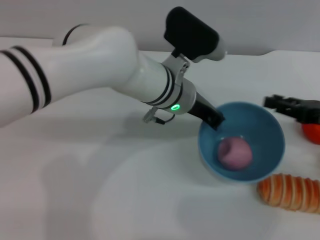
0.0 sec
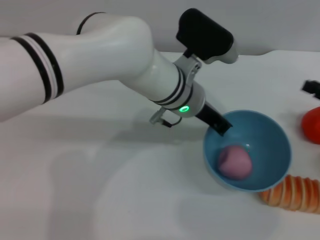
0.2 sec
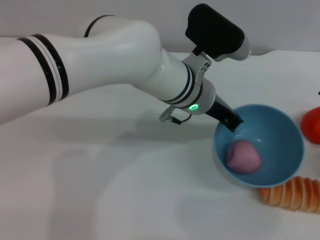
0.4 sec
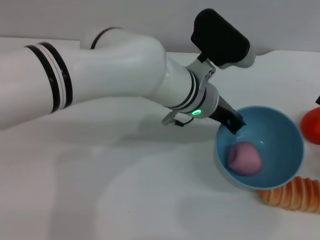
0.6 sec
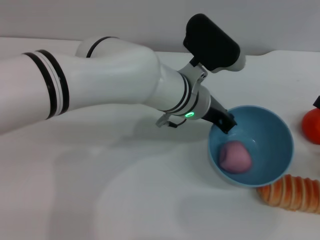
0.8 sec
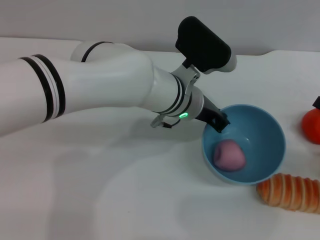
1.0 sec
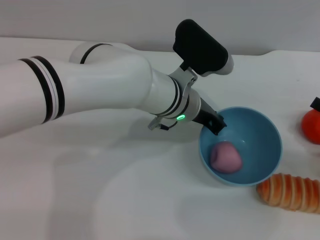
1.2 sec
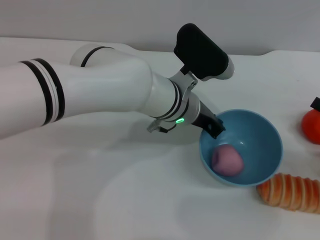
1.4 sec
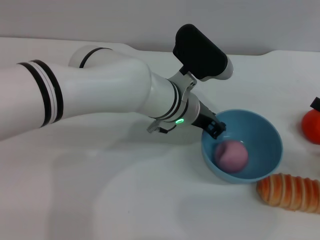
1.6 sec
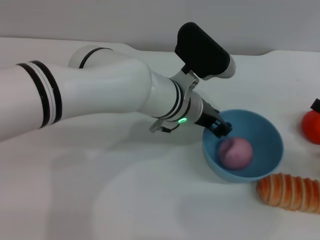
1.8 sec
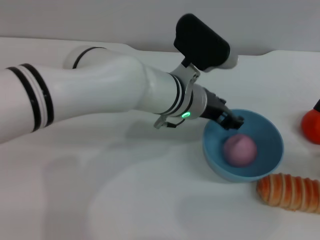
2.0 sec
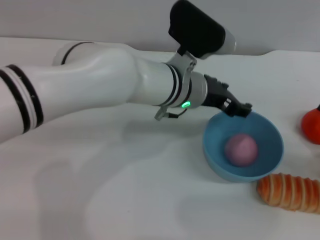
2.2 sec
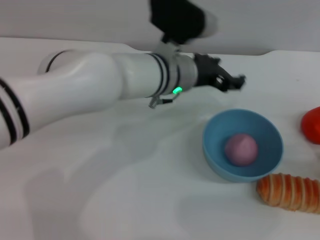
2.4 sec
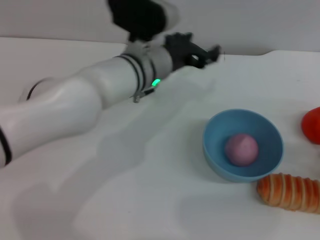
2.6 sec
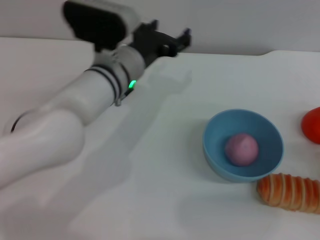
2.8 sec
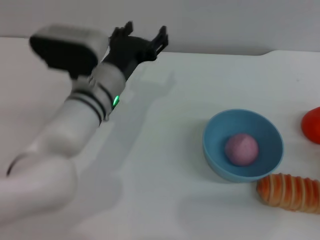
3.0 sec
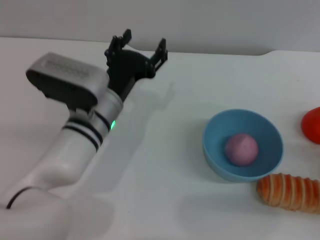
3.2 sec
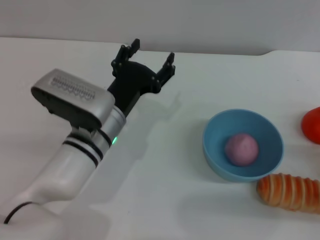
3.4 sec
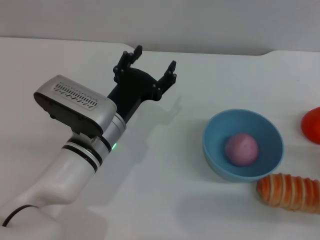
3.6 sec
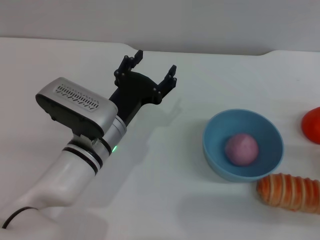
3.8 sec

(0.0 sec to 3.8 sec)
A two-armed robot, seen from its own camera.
Task of the whole recording: put the peach into the blue bowl and pour it out repeatedly.
Step, 0.2 sec - 2.4 sec: Place the bowl on the table.
0.0 sec - 1.2 sec: The right gripper travels backward by some 5 cm.
1.2 sec - 2.6 sec: The left gripper shifts by about 5 cm, and opens.
2.6 sec - 3.8 sec: The left gripper is displaced backward, downward and to the left by approximately 15 cm.

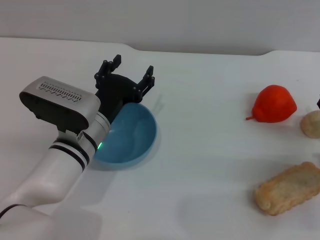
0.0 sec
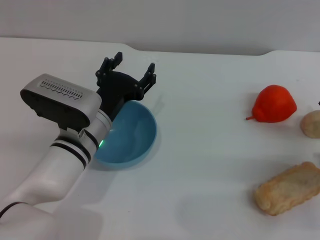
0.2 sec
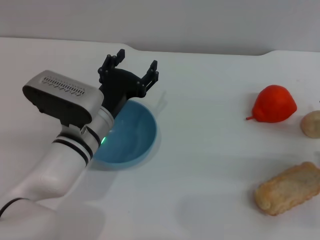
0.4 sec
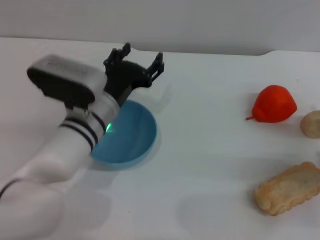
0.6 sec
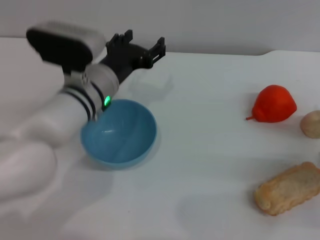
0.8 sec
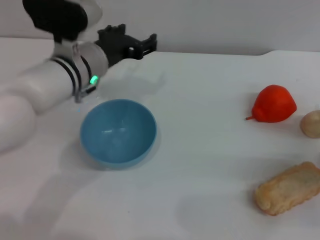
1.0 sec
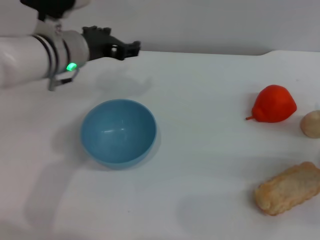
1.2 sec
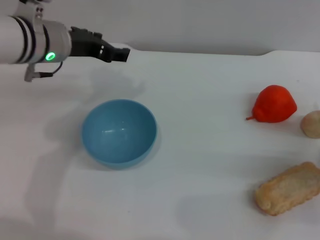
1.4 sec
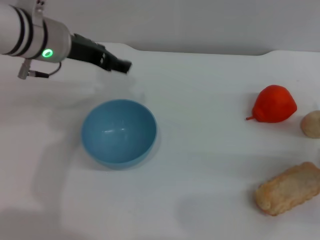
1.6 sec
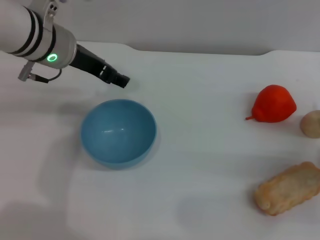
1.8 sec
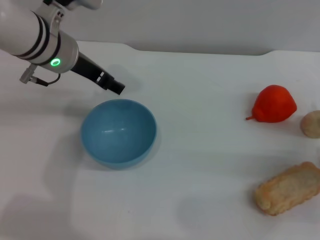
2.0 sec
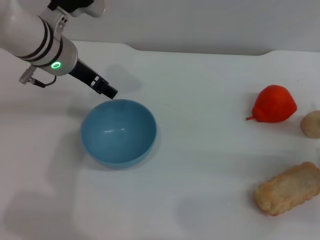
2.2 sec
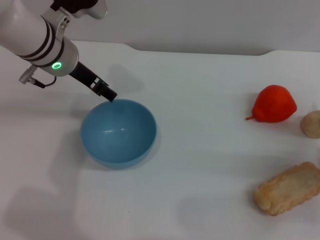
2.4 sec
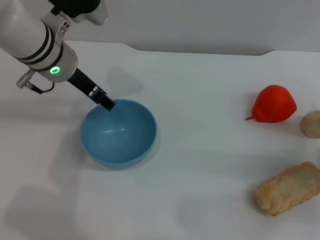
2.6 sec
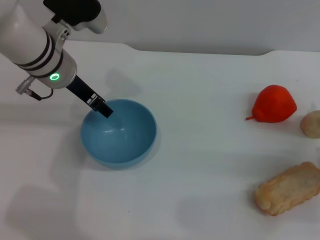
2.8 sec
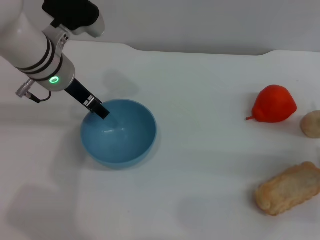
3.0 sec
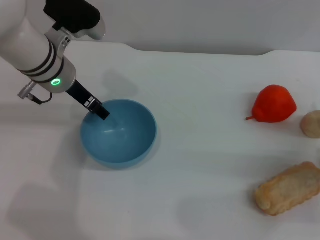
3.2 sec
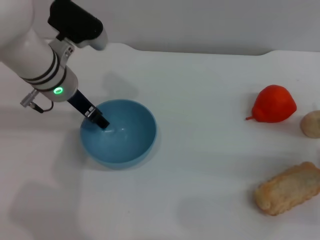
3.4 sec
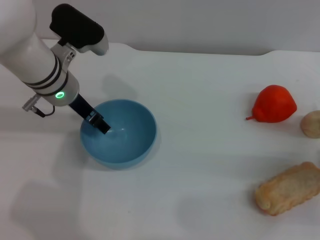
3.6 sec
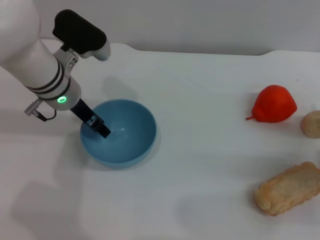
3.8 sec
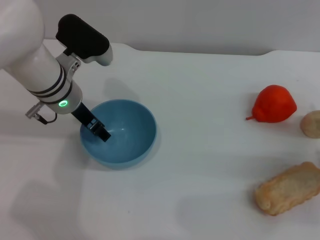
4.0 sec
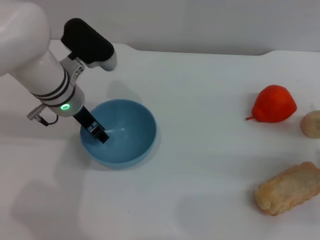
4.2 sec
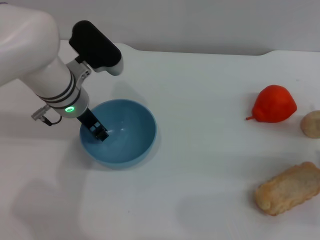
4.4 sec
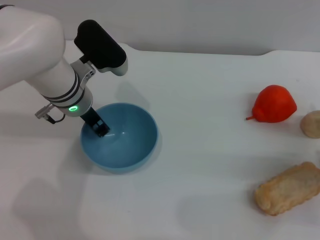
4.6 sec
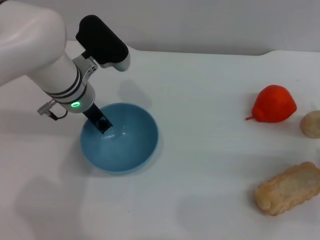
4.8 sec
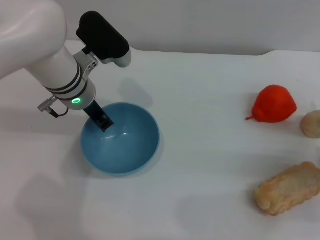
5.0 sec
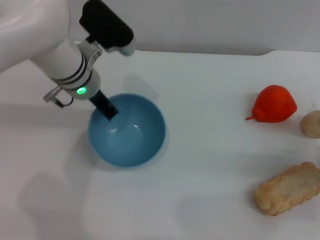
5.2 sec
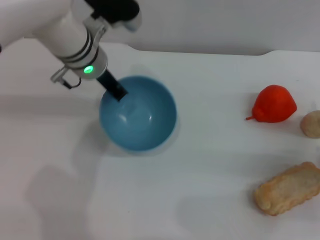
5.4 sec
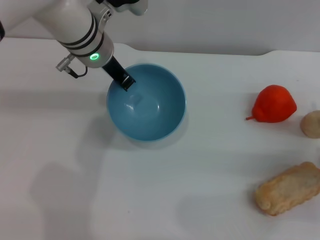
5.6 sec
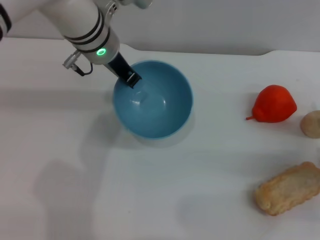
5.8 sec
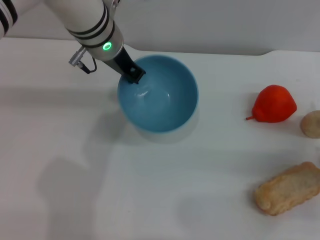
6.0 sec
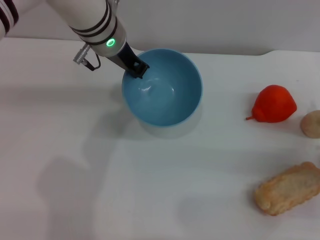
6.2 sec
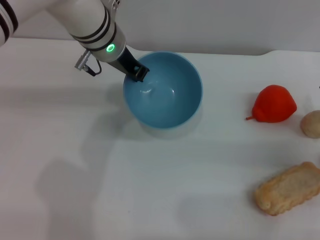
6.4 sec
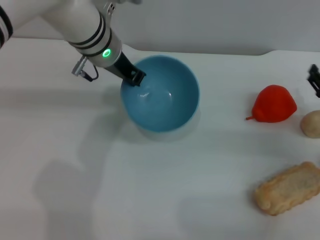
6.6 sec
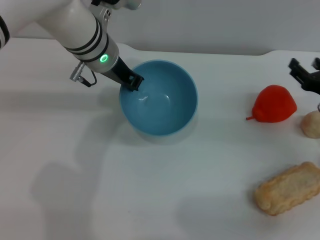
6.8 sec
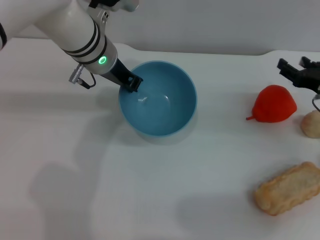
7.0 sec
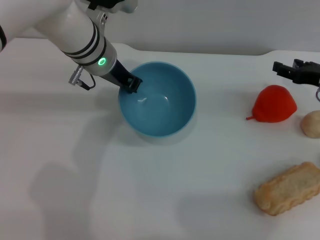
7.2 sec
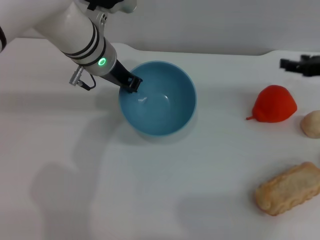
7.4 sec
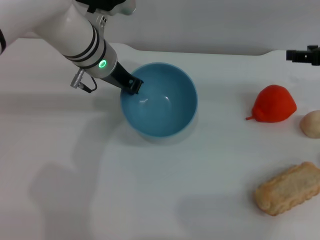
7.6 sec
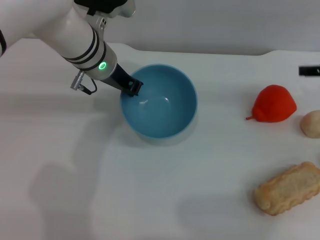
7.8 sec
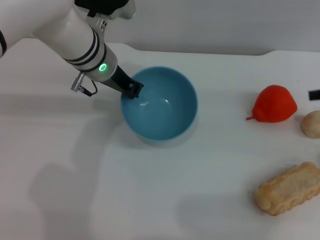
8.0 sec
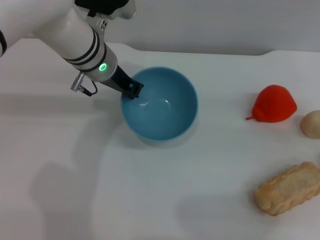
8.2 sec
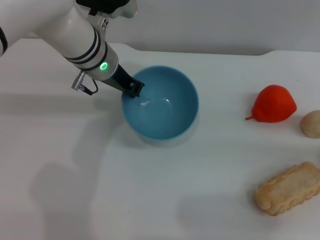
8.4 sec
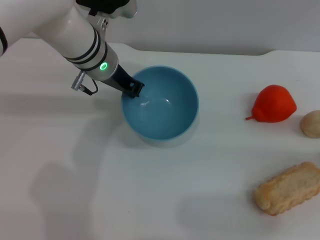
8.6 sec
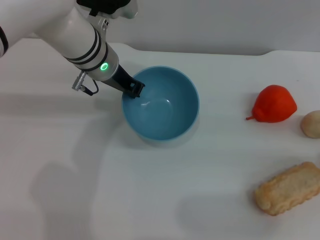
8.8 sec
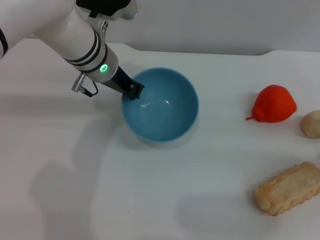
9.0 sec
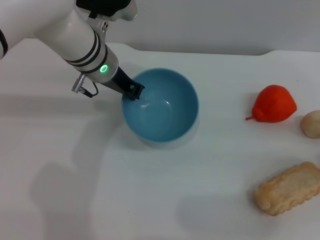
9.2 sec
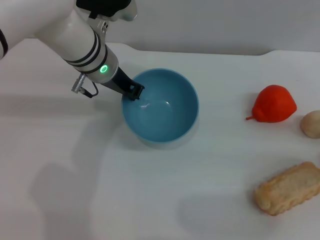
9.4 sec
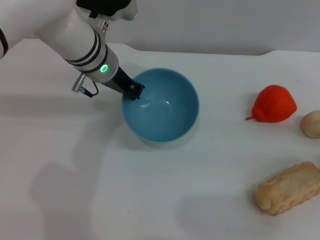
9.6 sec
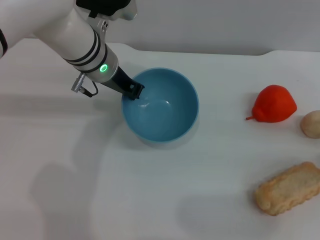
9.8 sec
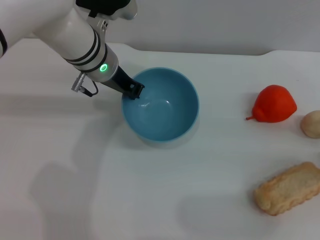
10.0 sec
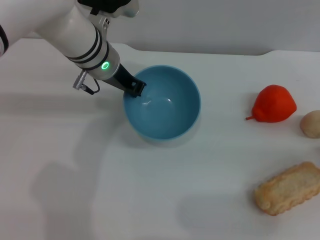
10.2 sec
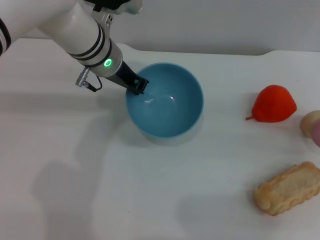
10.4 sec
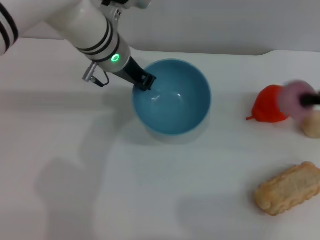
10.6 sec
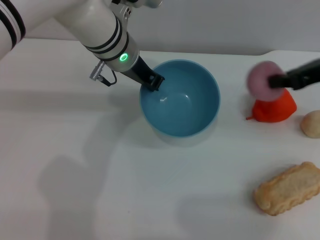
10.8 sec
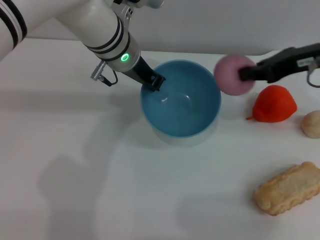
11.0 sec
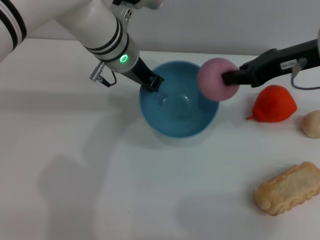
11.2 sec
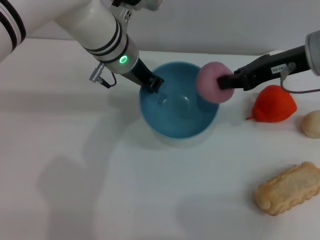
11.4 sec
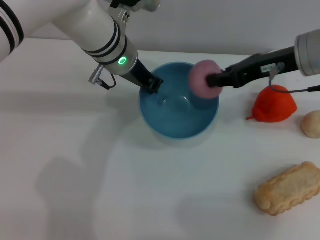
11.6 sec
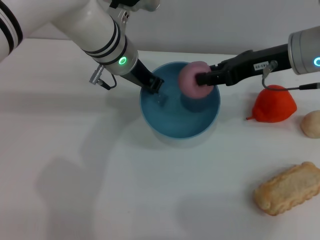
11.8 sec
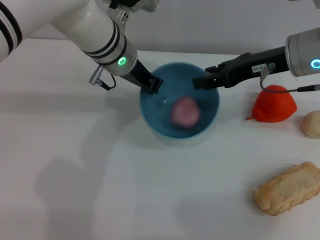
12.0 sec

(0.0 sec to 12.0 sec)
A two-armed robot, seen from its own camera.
Task of the whole recording: put the peach into the blue bowl and pour it out repeatedly.
Step, 0.0 sec - 6.4 sec: Pick up the bowl with the left gripper.
Step, 6.8 sec - 10.8 sec: Pick up the peach with the right gripper.
0.0 sec - 1.6 sec: The left gripper is displaced upward and forward by about 15 cm.
3.0 sec - 4.4 sec: The left gripper shifts by some 5 cm.
4.4 sec - 6.0 sec: The left gripper is displaced upward and to the right by approximately 10 cm, and closes.
6.0 sec - 7.6 sec: The right gripper shifts some 20 cm upward and forward.
7.6 sec - 9.0 sec: The right gripper shifts approximately 10 cm backward and to the right.
9.0 sec - 10.4 sec: The right gripper shifts by roughly 5 cm, and closes.
10.4 sec - 12.0 sec: The right gripper travels to the left by some 15 cm, and opens its fingers.

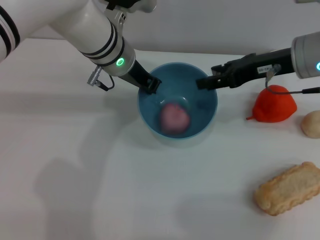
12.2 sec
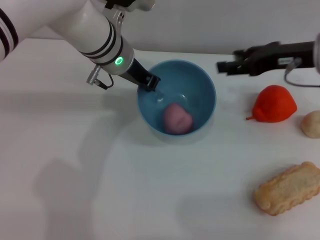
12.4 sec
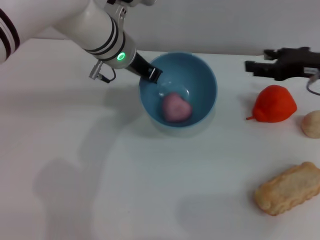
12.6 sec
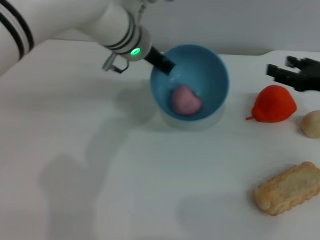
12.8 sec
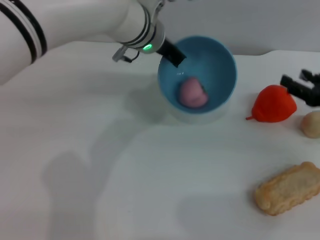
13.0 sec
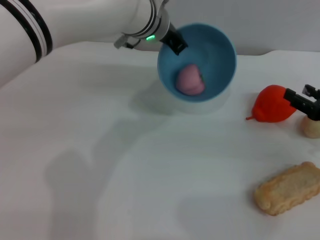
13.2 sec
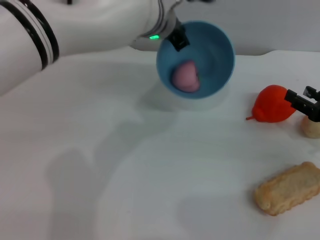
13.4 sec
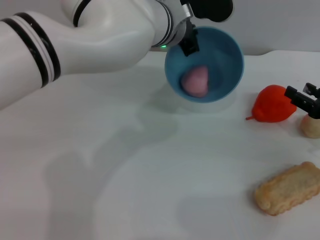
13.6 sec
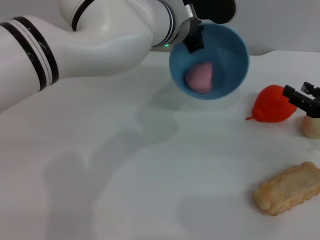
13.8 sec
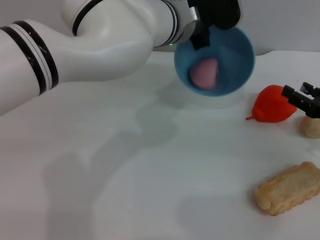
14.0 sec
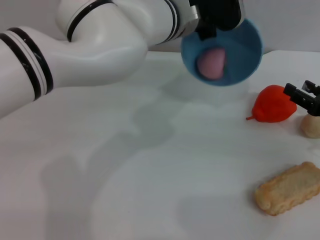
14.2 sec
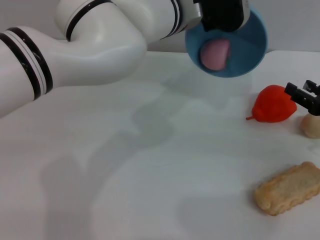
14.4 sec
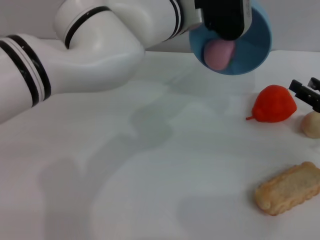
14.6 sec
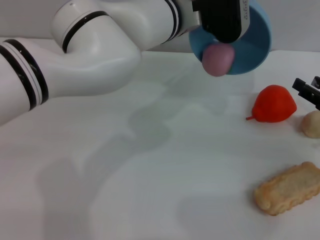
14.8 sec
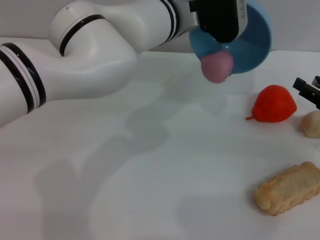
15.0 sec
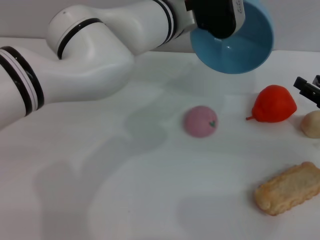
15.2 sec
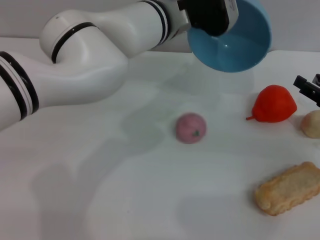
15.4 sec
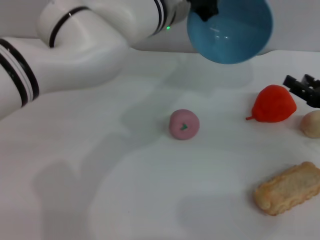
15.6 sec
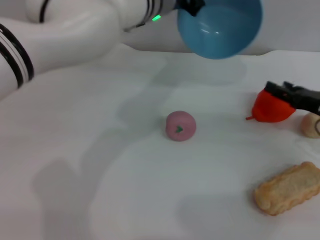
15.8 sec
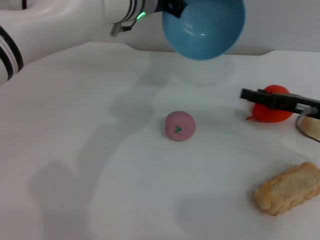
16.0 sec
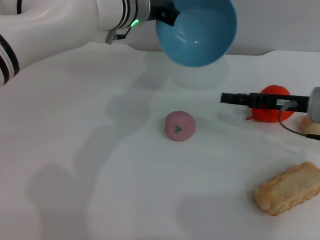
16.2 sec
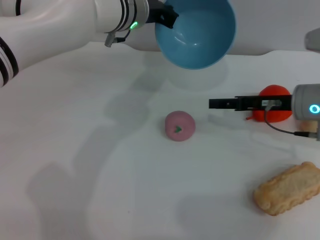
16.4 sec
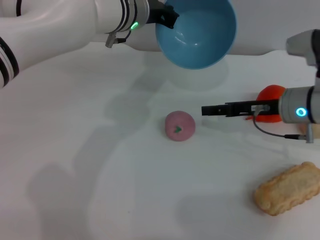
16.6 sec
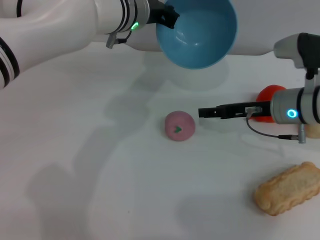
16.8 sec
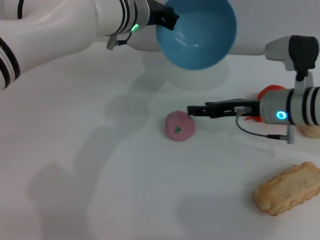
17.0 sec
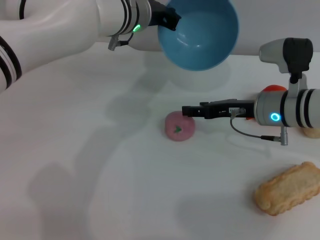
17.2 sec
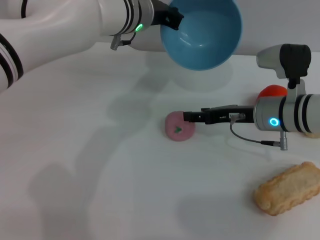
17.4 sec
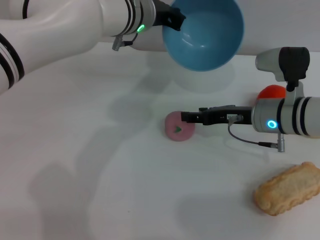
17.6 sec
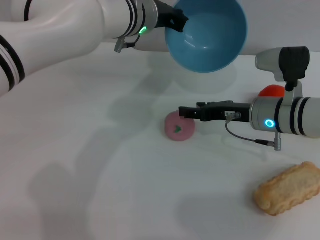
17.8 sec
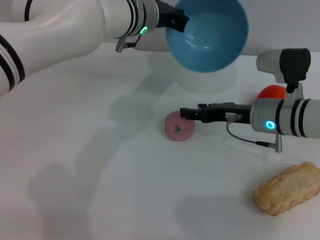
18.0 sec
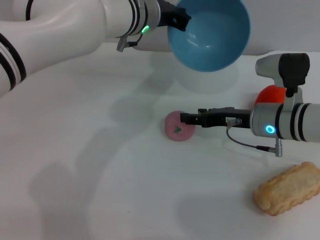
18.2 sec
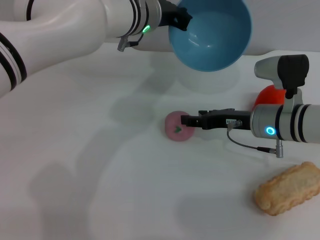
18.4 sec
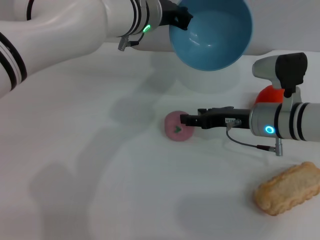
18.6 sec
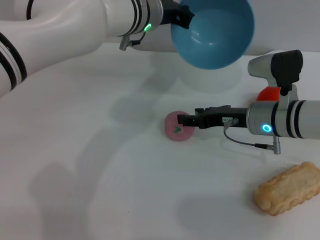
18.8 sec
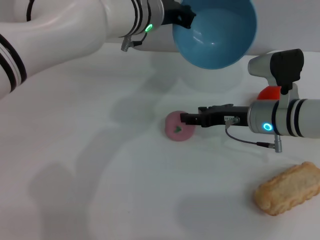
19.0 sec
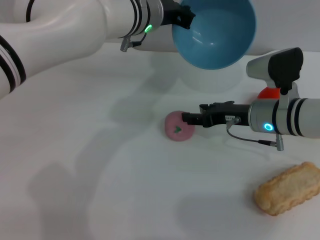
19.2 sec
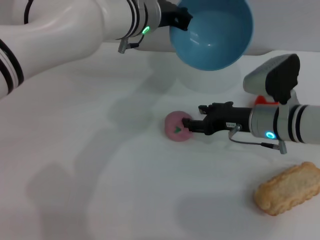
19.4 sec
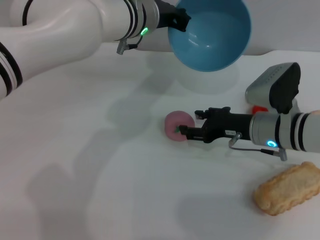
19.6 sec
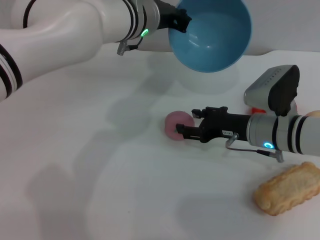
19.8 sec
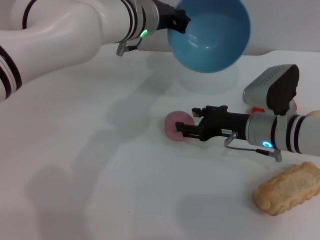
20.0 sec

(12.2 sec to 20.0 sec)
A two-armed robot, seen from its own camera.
Task of the whole recording: put the peach into the blue bowl and pour it out repeatedly.
Step, 12.2 sec - 13.4 sec: Place the peach into the bowl.
Step, 13.6 sec - 15.4 sec: Pour the peach out of bowl.
12.2 sec - 13.8 sec: The right gripper is displaced to the right, downward and backward by approximately 20 cm, while the left gripper goes about 10 cm to the right.
15.4 sec - 16.8 sec: The right gripper travels to the left and forward by approximately 15 cm. The left gripper travels to the left by about 5 cm.
16.8 sec - 18.4 sec: The grippers move only a little.
